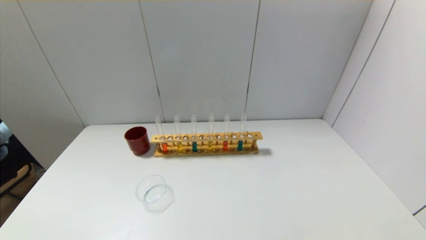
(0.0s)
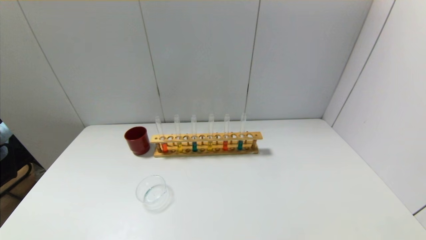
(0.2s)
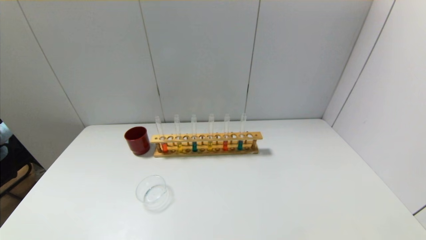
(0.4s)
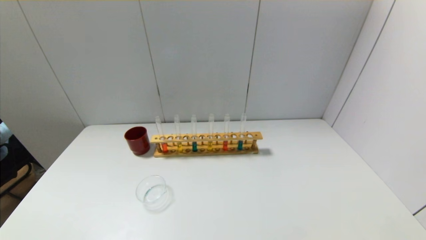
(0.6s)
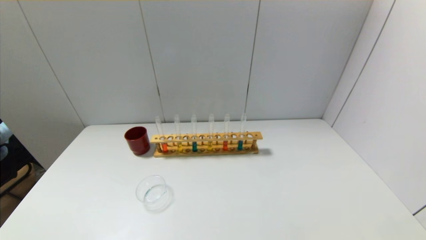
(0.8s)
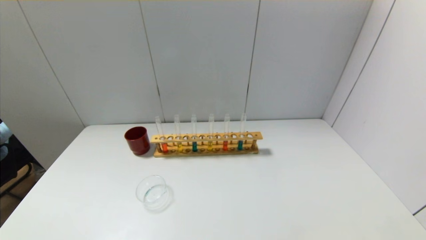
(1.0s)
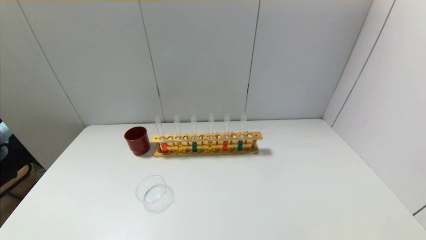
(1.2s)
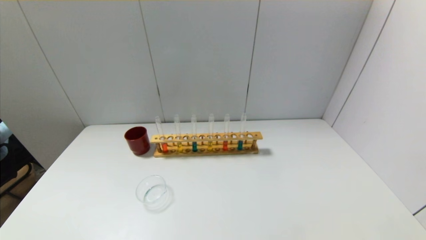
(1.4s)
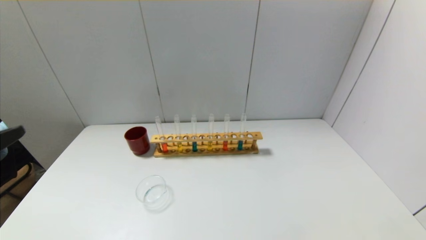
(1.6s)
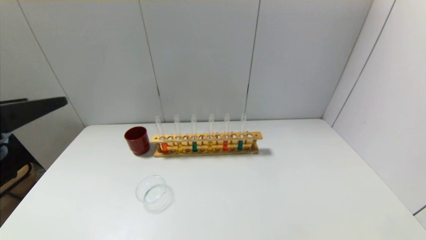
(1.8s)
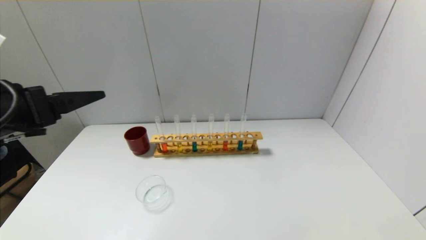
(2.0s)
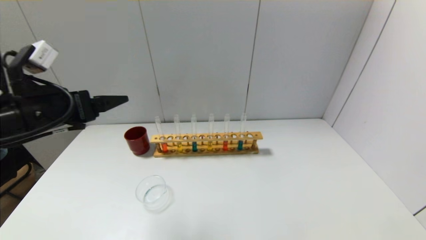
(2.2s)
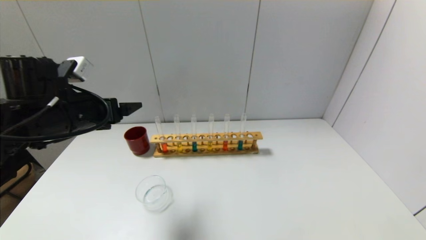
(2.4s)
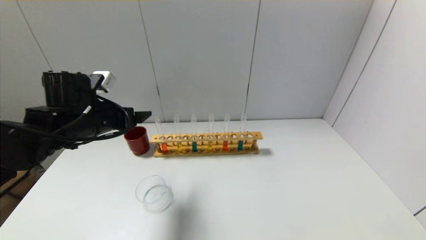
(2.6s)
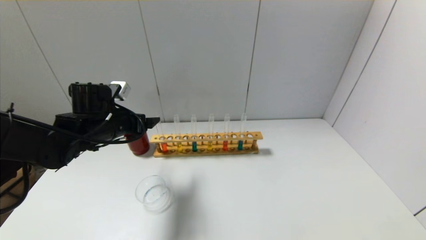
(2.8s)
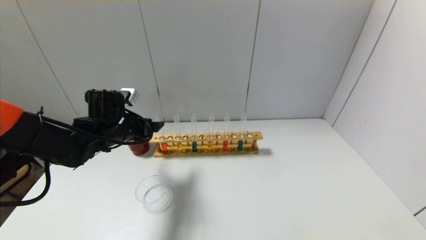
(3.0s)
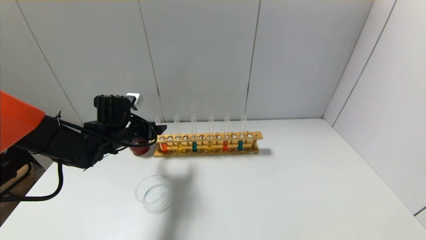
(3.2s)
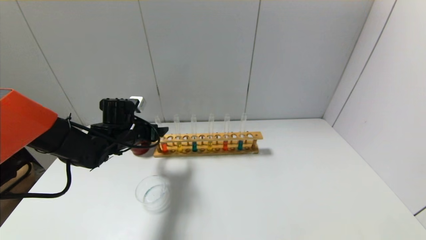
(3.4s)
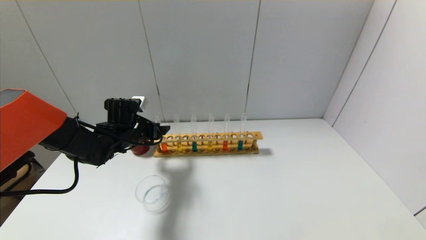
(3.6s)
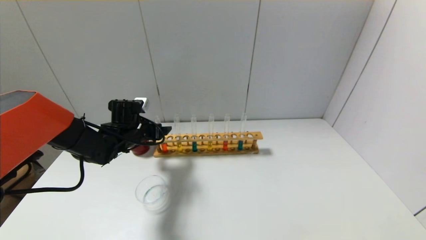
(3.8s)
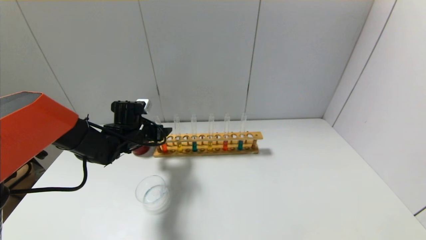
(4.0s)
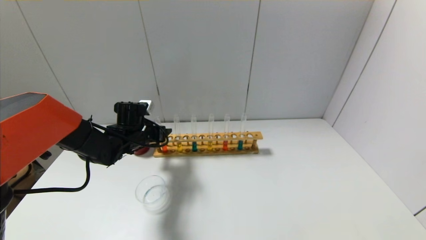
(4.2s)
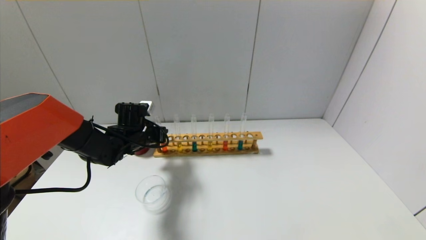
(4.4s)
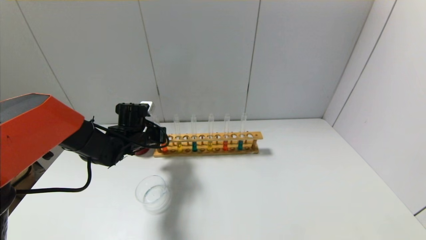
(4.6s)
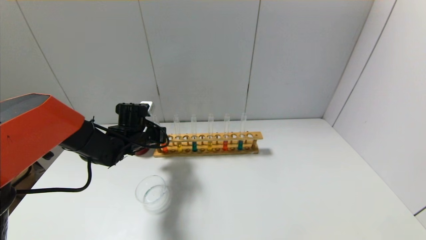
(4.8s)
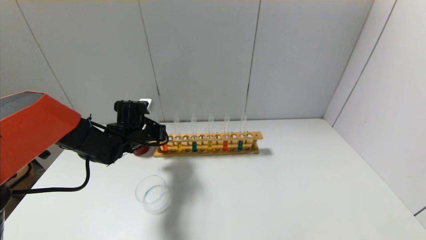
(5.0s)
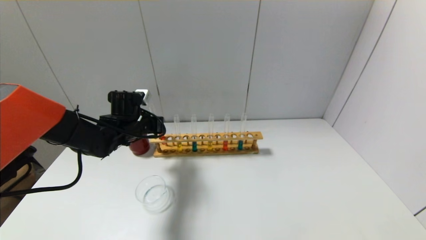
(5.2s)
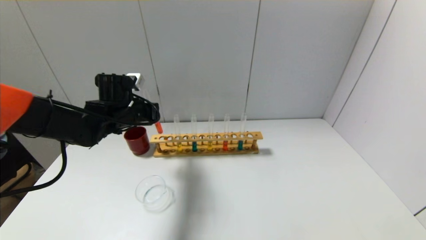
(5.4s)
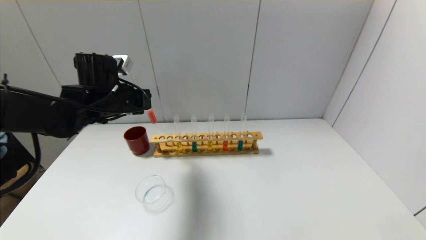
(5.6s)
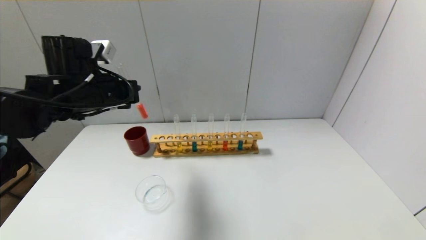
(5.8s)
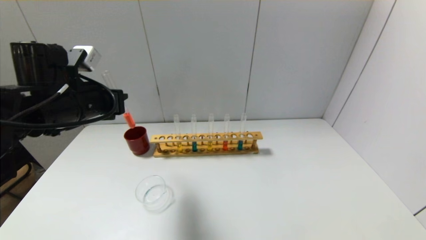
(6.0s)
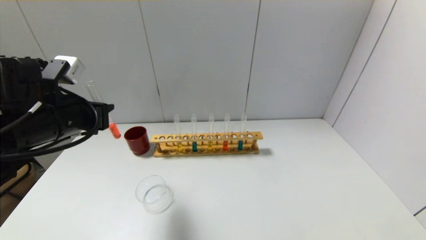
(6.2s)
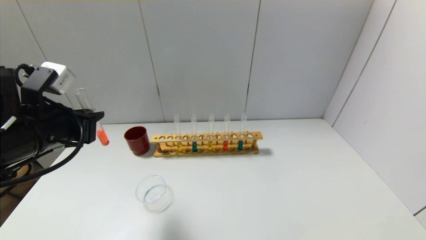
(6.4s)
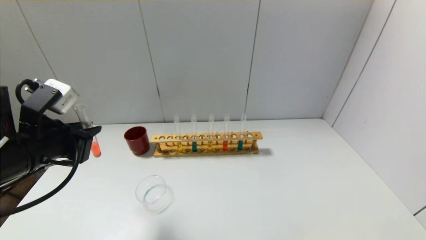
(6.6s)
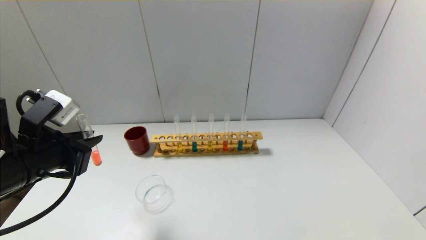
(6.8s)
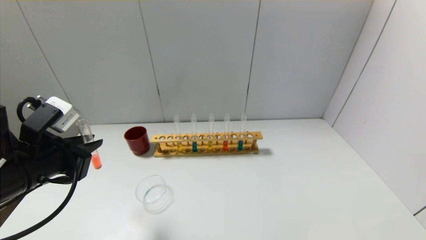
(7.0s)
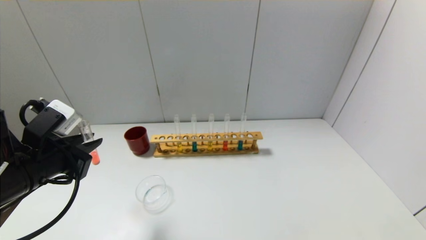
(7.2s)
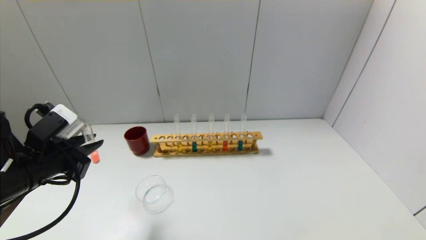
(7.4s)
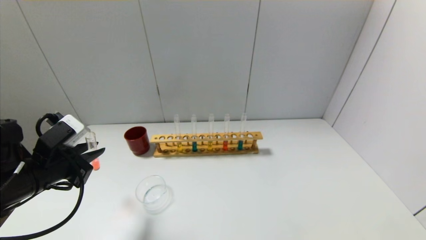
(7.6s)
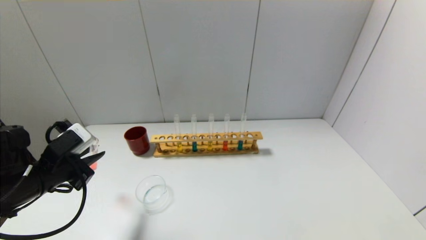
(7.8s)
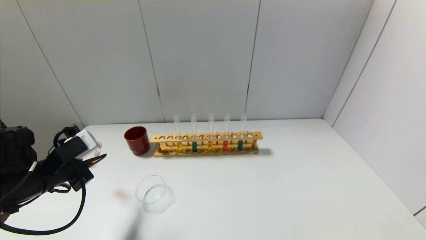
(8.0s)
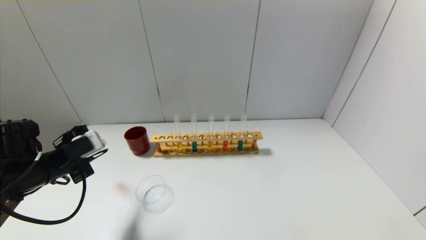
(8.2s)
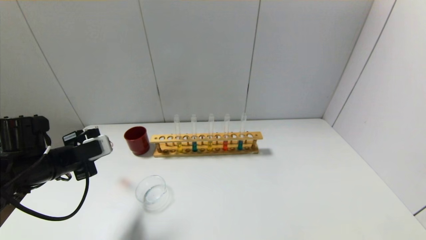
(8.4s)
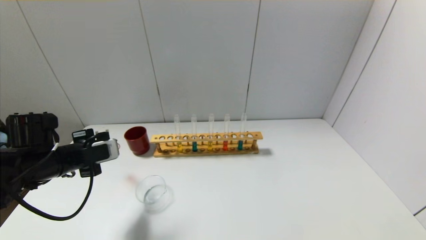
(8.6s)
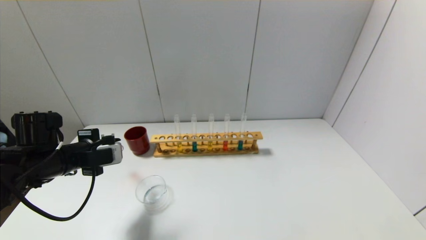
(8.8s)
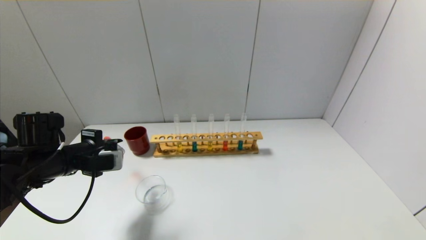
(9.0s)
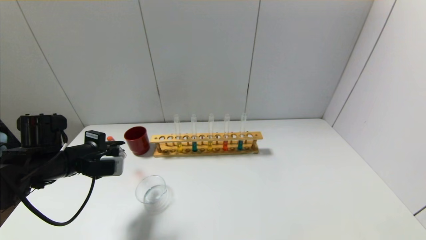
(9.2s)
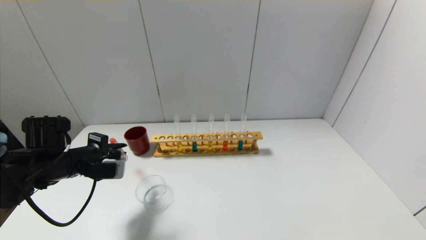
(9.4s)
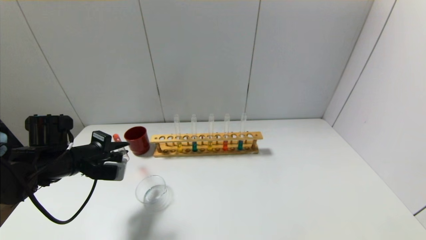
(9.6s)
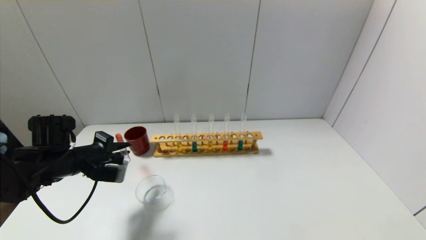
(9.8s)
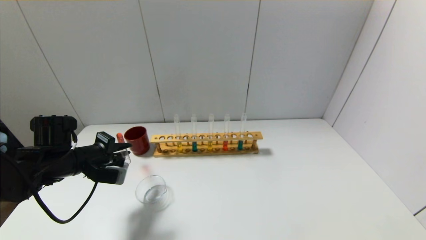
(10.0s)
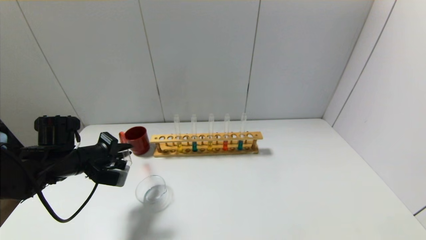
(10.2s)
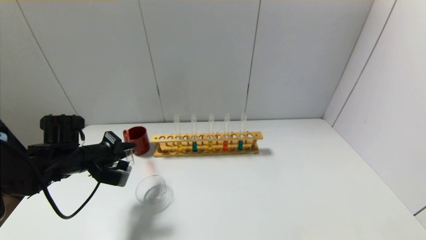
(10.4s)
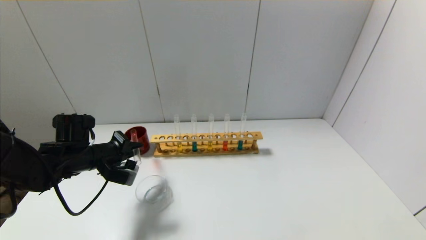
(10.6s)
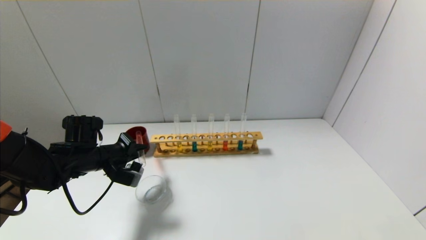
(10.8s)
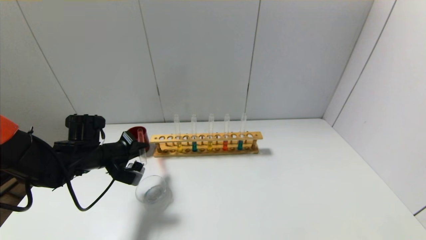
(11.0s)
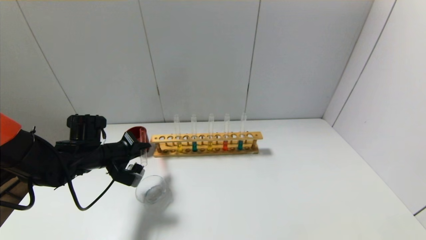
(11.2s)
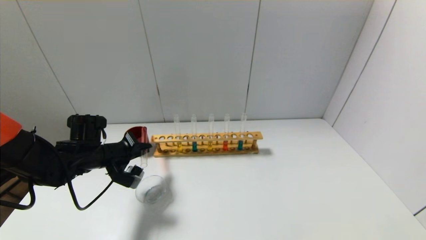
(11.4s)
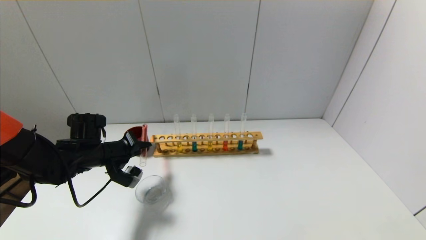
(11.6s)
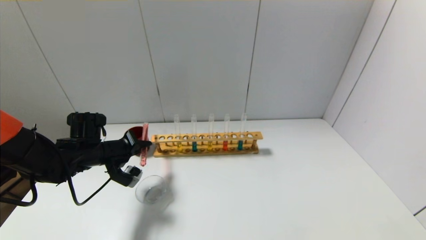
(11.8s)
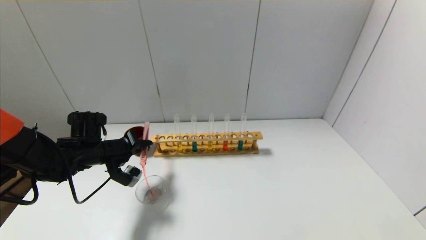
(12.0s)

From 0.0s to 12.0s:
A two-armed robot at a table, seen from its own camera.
Step, from 0.0s to 4.6s: Grasp the red reagent with the left gripper.
From 1.6s to 3.0s: The left gripper heads forward and downward, covering approximately 30 cm.
From 3.0s to 4.4s: The left gripper travels downward by about 5 cm, and closes up.
From 4.4s to 6.0s: The left gripper is displaced upward and backward by approximately 20 cm.
From 6.0s to 7.6s: The left gripper shifts roughly 10 cm downward, backward and to the left.
From 7.6s to 9.0s: The left gripper goes roughly 5 cm forward.

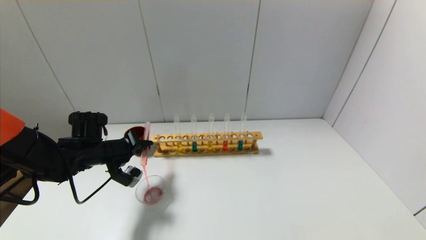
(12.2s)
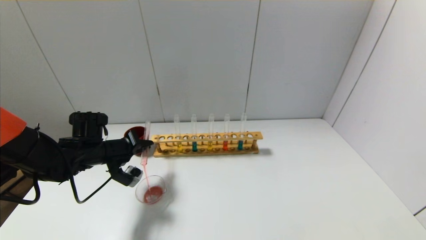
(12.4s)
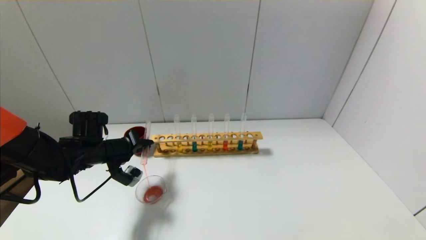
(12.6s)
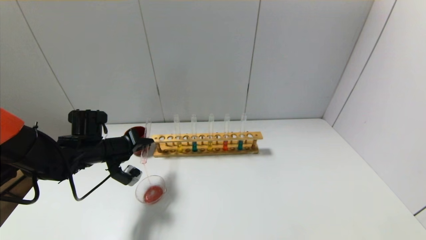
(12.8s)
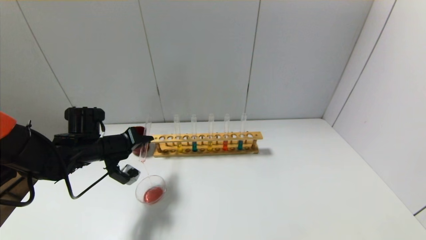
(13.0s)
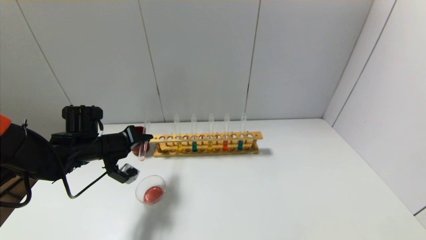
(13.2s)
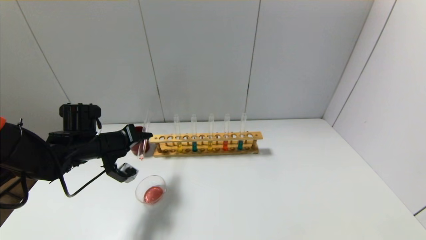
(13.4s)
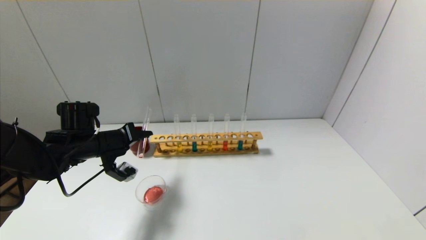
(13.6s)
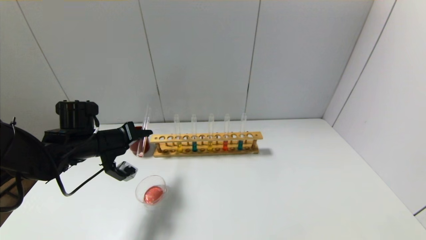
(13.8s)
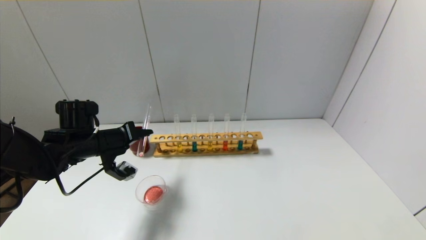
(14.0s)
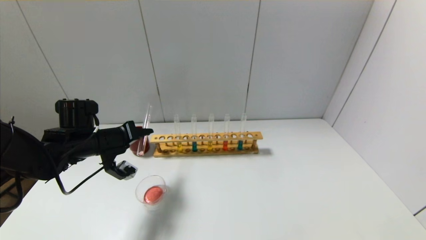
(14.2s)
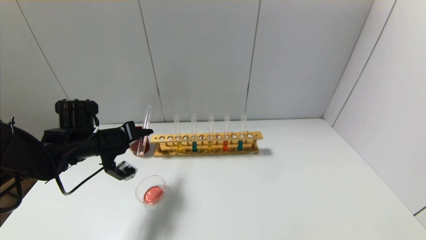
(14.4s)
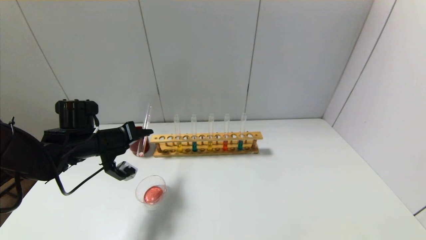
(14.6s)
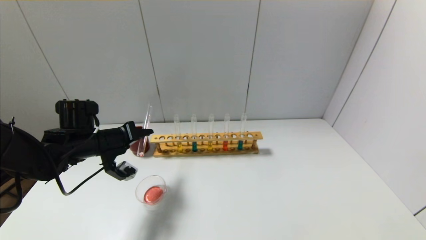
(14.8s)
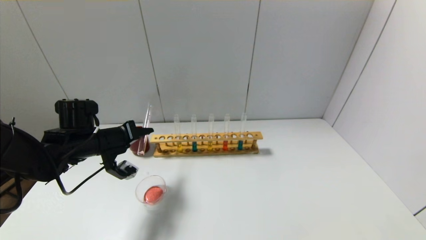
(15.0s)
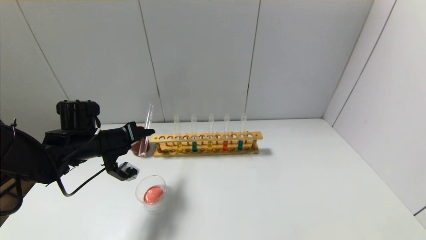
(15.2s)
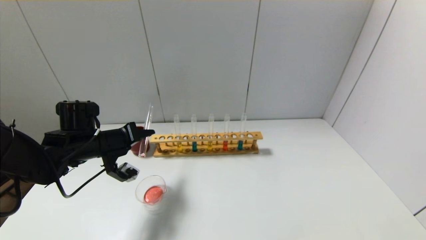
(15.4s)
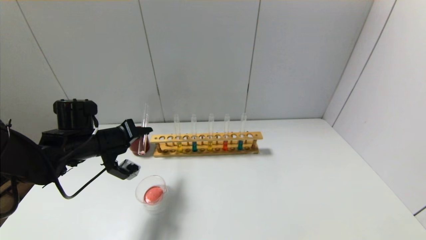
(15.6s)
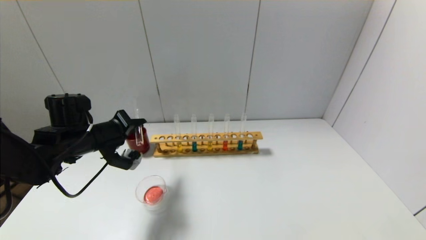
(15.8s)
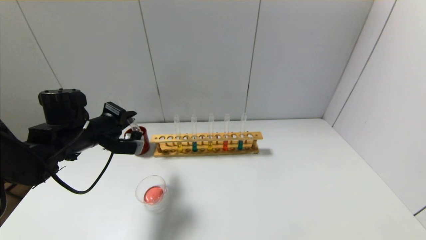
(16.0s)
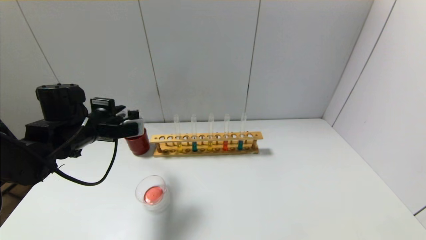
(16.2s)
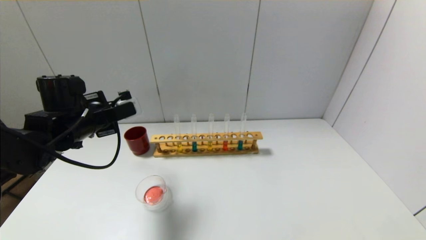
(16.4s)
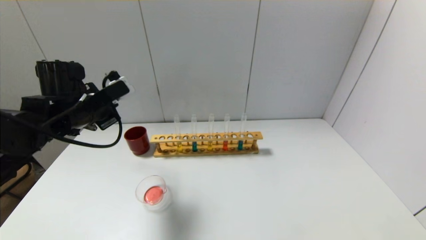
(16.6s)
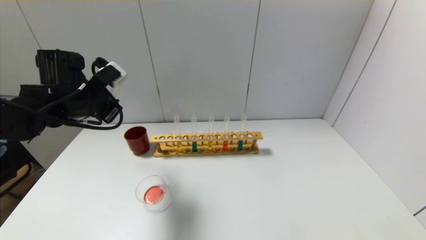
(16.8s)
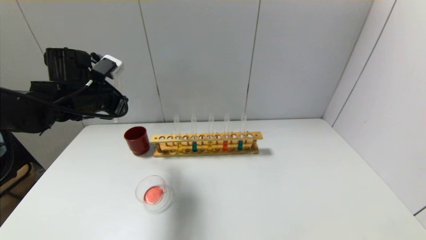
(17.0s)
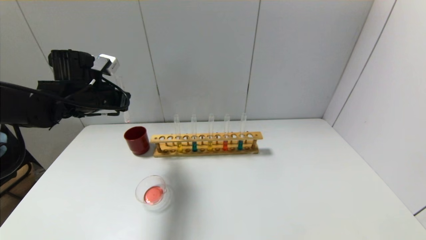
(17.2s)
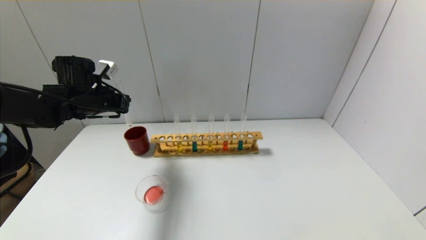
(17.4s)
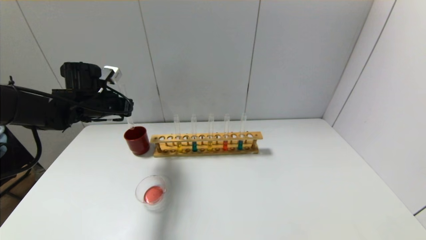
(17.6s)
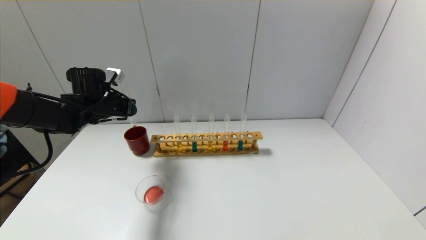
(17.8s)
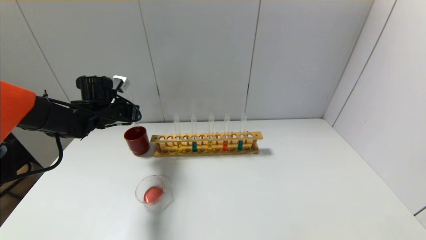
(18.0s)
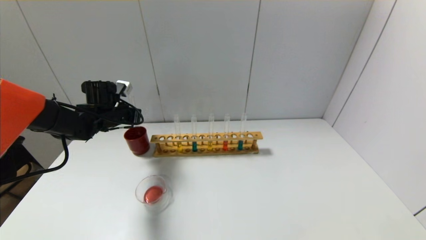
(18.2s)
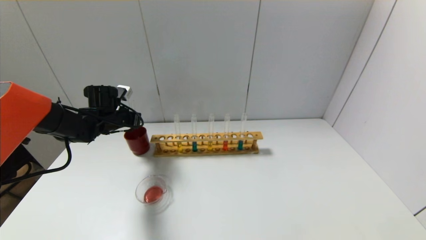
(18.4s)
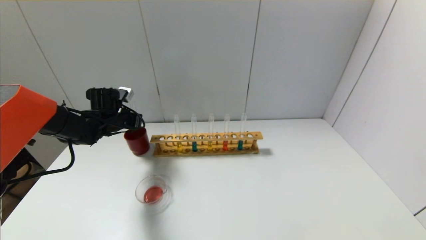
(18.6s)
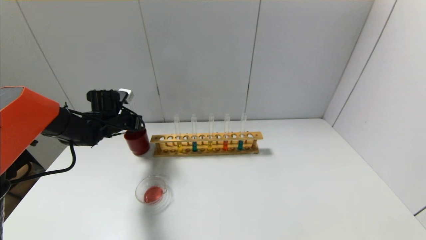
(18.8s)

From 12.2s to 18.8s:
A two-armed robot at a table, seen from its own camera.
Step, from 12.2s to 15.6s: Pour the red reagent into the graduated cylinder with the left gripper.
From 12.2s to 13.8s: The grippers move only a little.
From 13.8s to 15.4s: The two grippers keep their place.
From 15.4s to 17.2s: The left gripper travels upward by approximately 10 cm.
From 17.2s to 18.8s: The left gripper shifts approximately 15 cm downward and forward.
